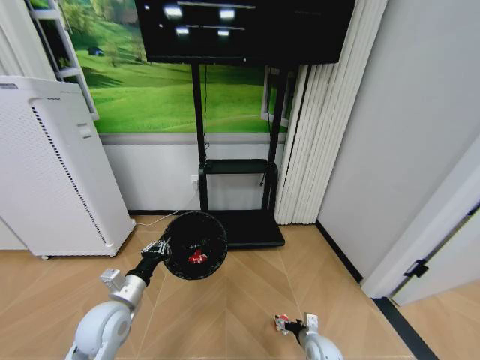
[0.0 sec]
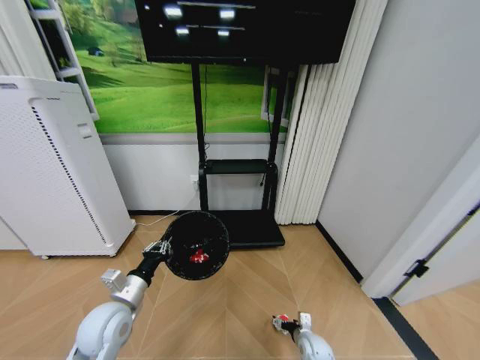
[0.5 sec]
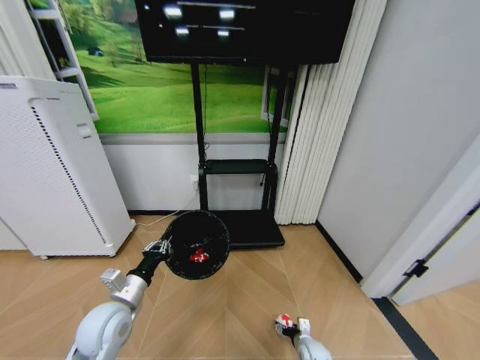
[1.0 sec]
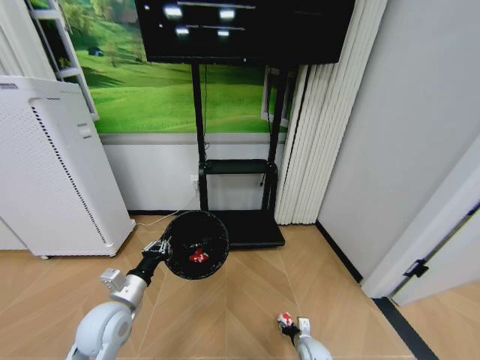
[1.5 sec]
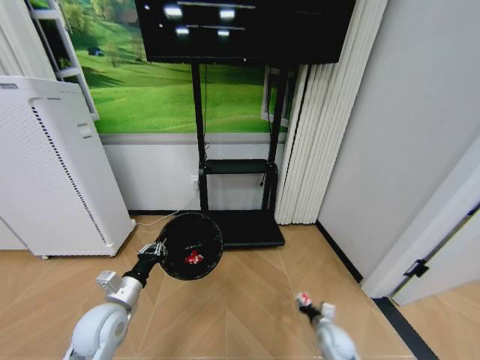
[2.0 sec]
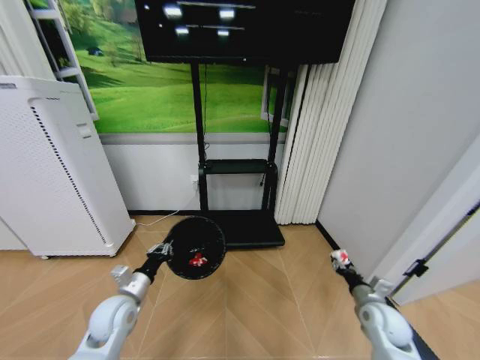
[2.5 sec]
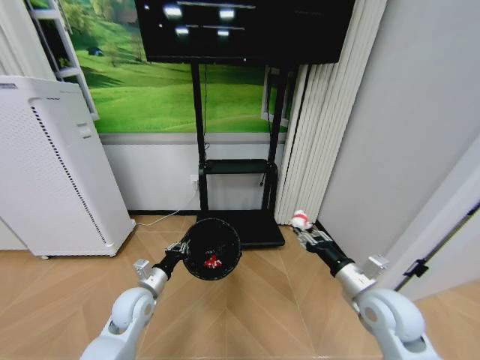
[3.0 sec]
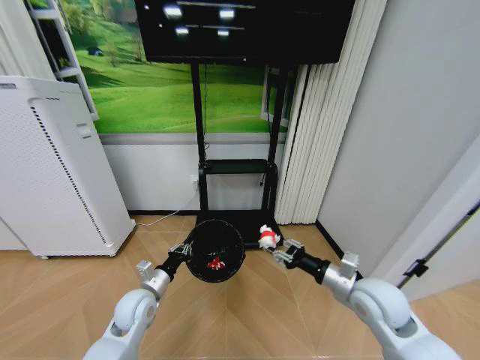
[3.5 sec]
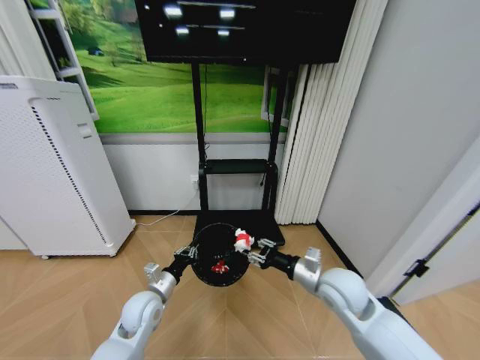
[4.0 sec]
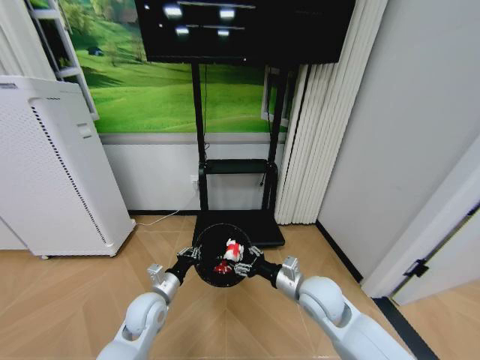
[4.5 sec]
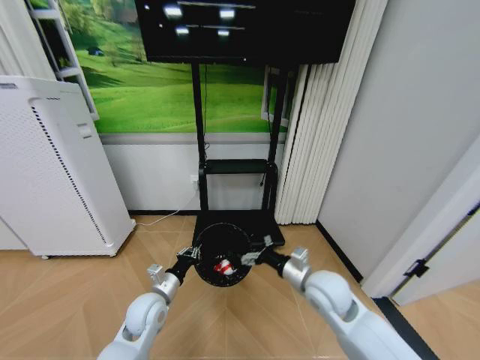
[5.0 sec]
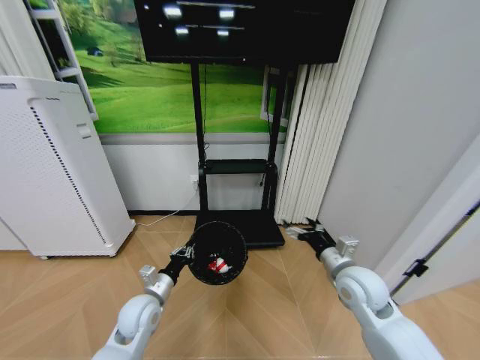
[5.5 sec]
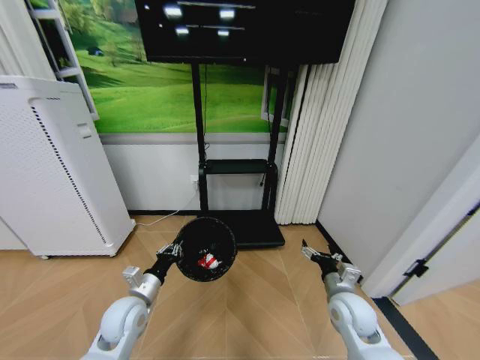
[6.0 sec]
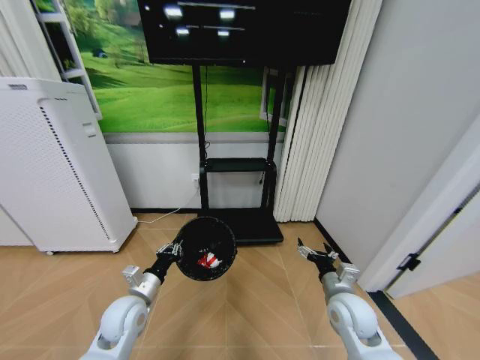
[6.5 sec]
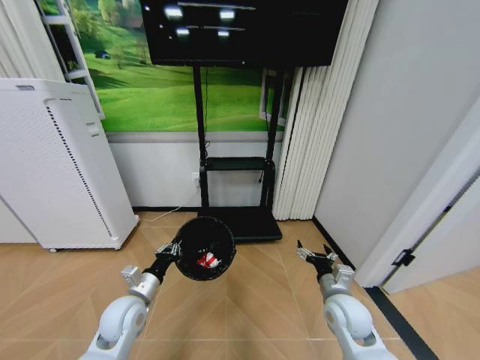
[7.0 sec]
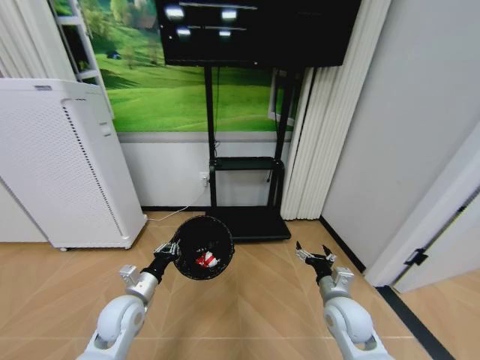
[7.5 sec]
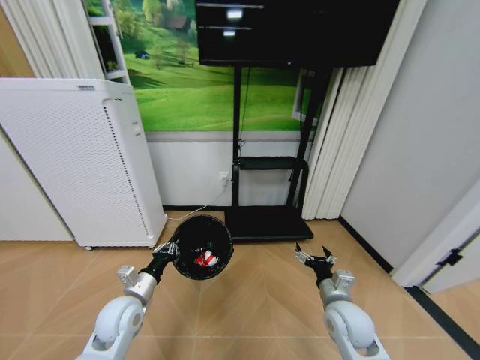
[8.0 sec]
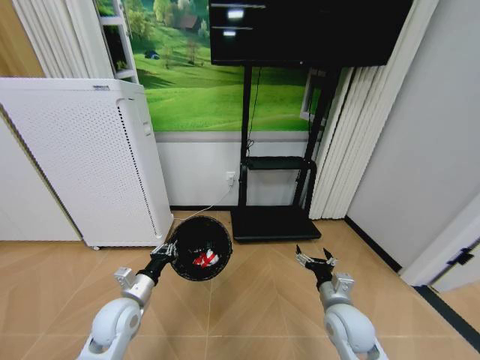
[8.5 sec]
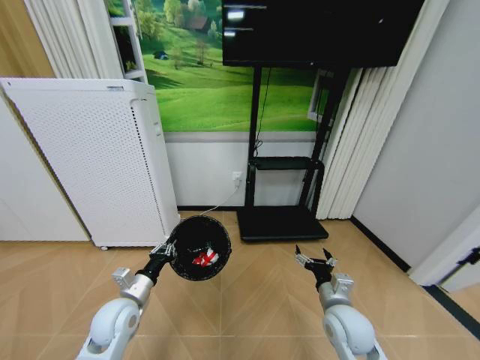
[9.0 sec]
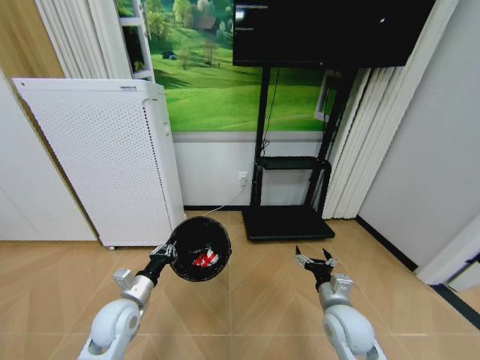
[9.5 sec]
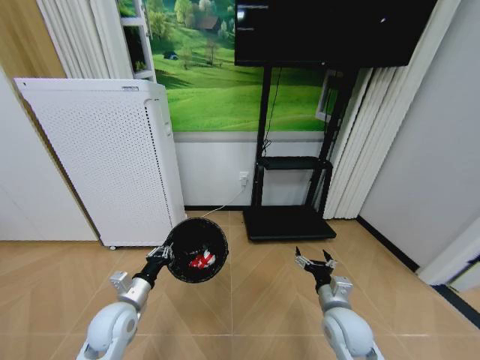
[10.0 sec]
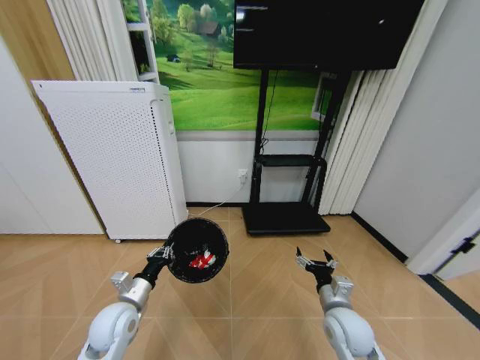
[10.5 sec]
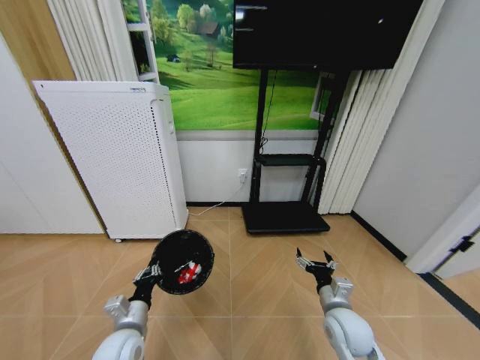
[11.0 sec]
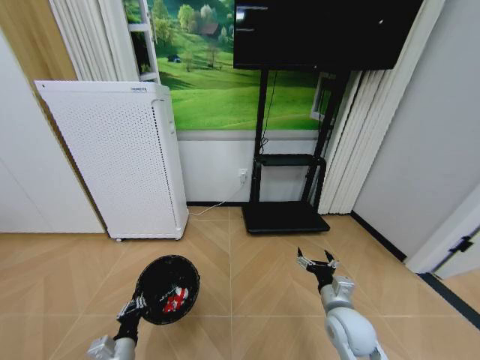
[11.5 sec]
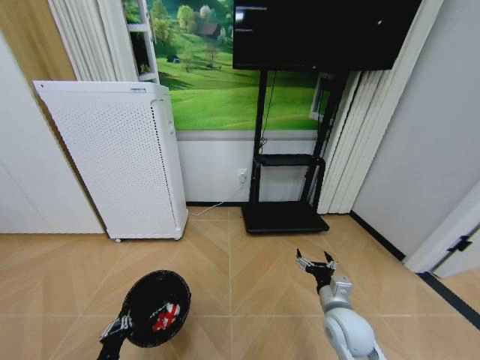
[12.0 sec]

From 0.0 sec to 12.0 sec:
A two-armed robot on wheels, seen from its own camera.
Task of the whole recording: Pick up the trash bin and place the garbage on the floor into it.
From 0.0 sec to 2.0 sec: The right gripper shifts by some 5 cm, and closes.
From 2.0 sec to 4.0 sec: The right gripper heads upward, covering approximately 30 cm. The left gripper is displaced to the right by some 5 cm.
From 4.0 sec to 6.0 sec: The right gripper heads downward and to the right, covering roughly 10 cm, and opens.
From 10.0 sec to 12.0 sec: The left gripper moves backward and downward, approximately 20 cm.

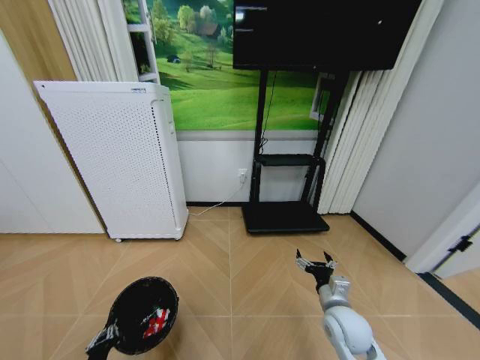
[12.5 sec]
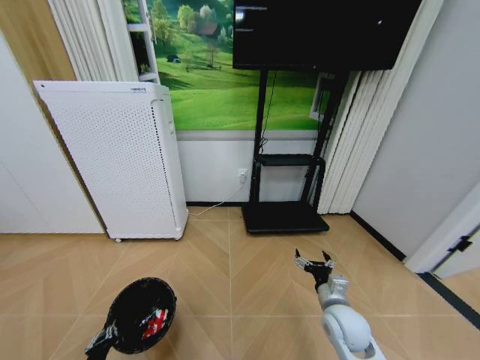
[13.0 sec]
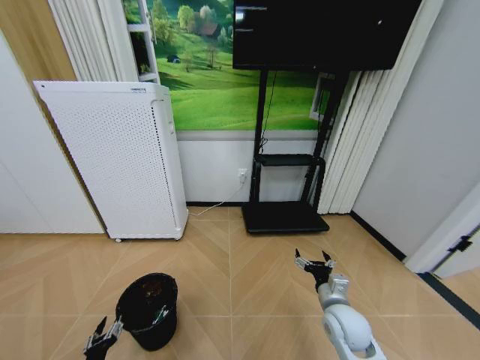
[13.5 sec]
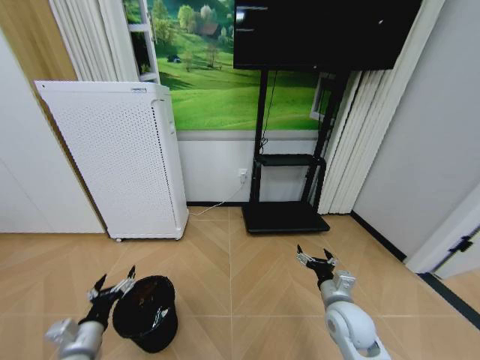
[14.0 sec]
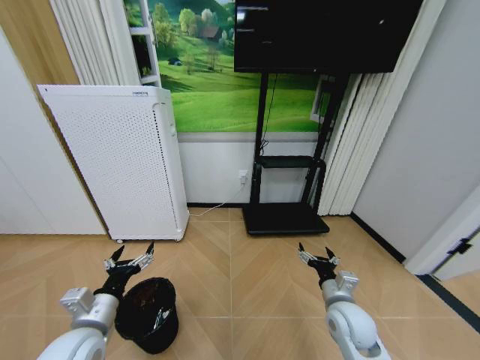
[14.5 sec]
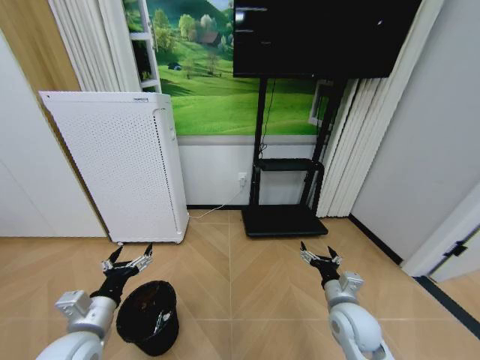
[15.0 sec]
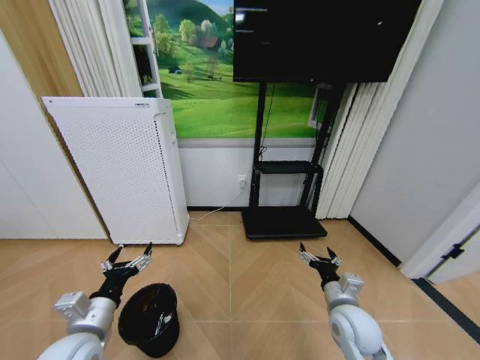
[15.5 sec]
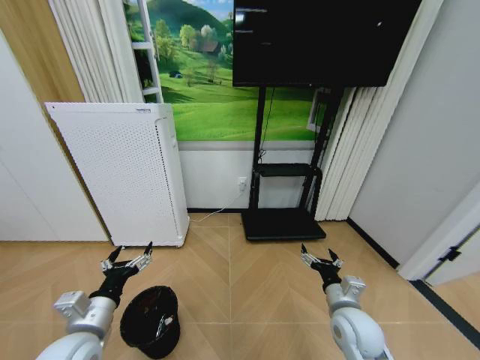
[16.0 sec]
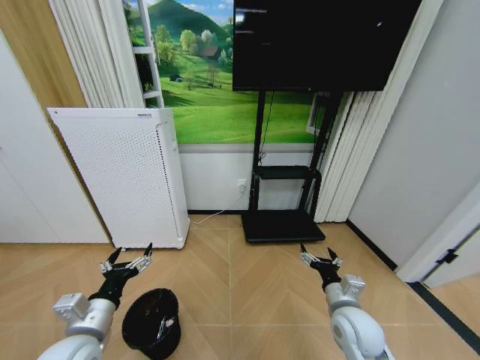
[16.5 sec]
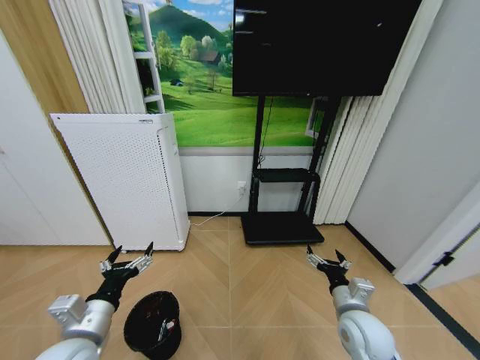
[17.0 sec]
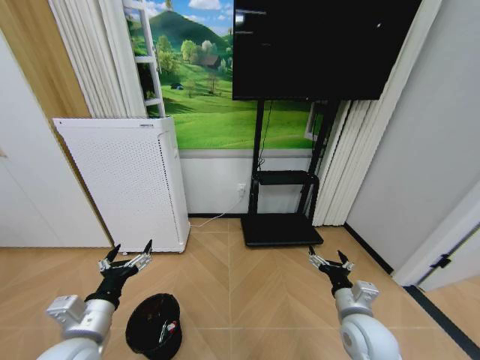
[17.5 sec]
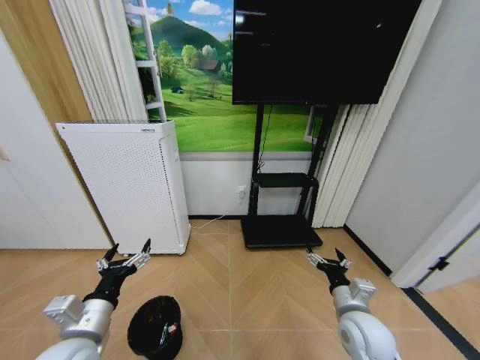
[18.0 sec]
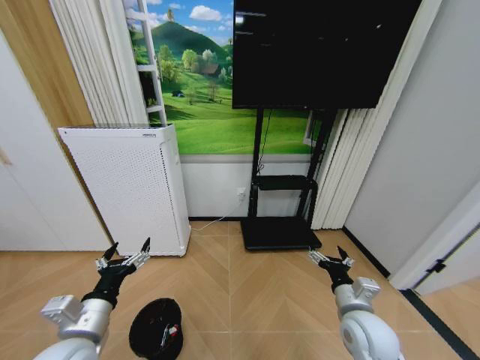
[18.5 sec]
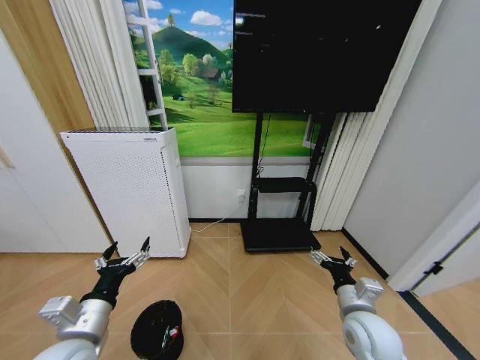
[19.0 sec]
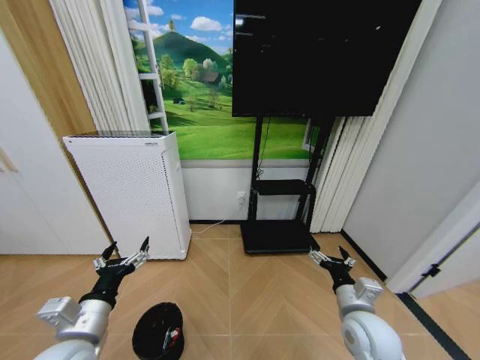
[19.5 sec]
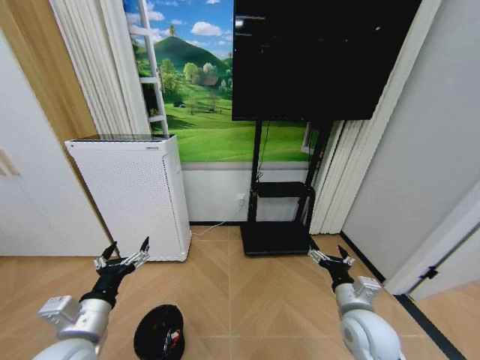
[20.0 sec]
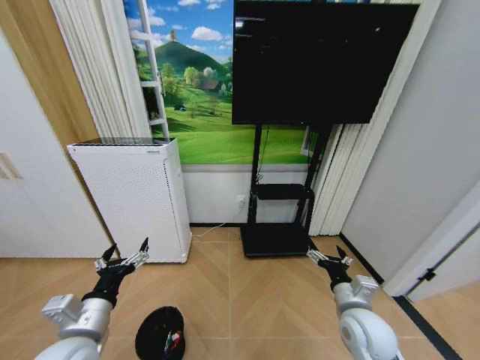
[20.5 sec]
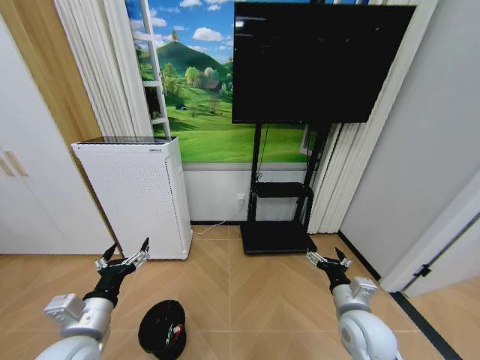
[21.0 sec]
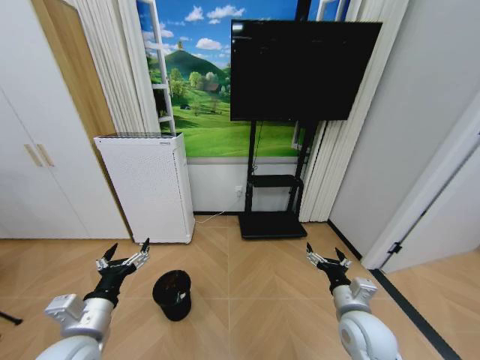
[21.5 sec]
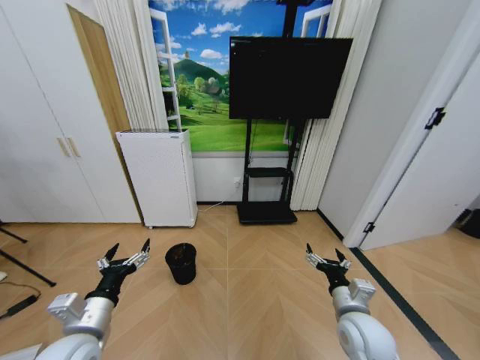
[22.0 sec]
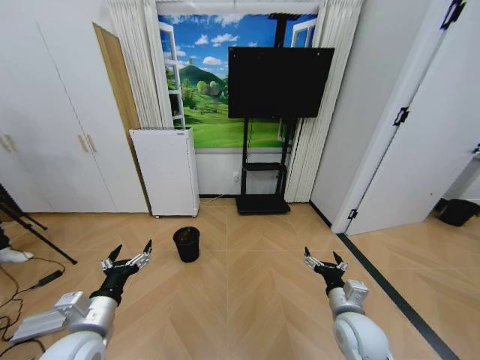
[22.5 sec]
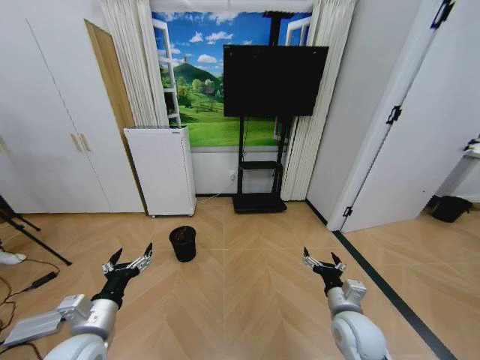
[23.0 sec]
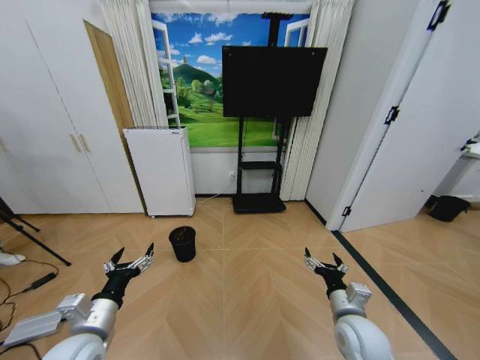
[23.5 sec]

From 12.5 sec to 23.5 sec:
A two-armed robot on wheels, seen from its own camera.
Task of the whole recording: Pick up the trash bin and place the garbage on the floor into it.
From 12.5 sec to 14.5 sec: The left gripper shifts about 20 cm upward and forward, and opens.
From 14.5 sec to 18.0 sec: There are only small adjustments of the grippers.
From 18.0 sec to 20.0 sec: Both grippers stay about where they are.
